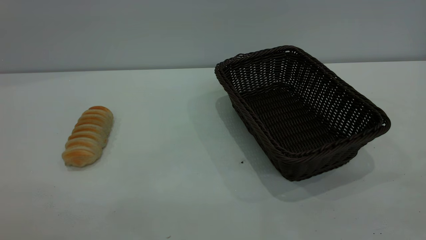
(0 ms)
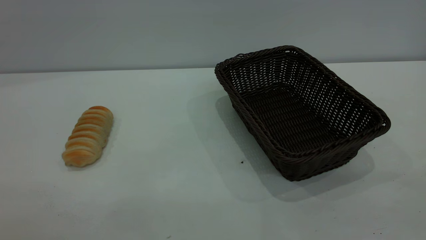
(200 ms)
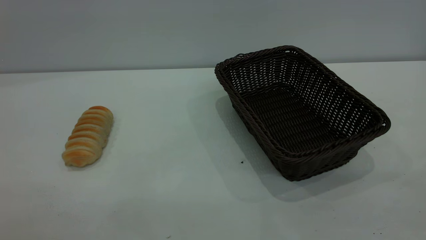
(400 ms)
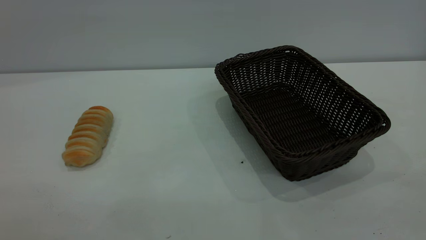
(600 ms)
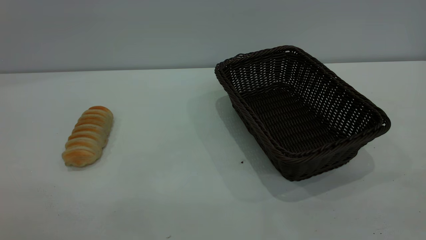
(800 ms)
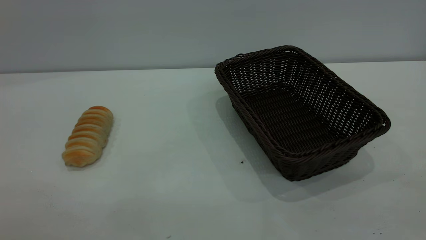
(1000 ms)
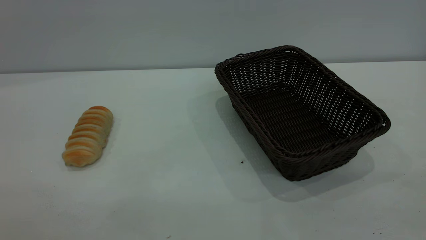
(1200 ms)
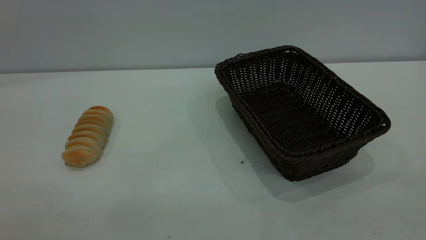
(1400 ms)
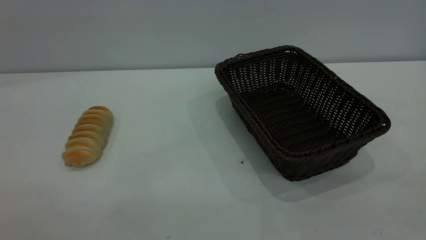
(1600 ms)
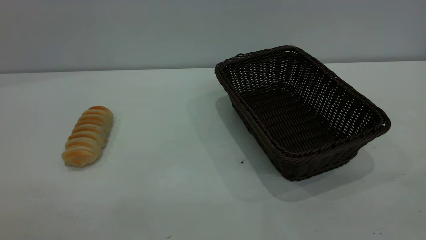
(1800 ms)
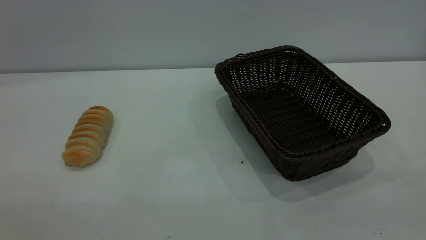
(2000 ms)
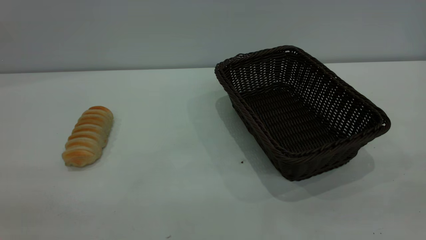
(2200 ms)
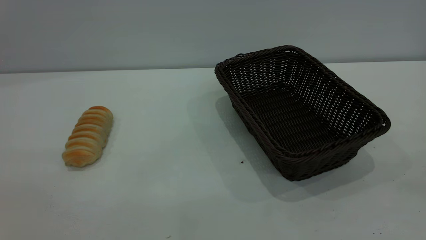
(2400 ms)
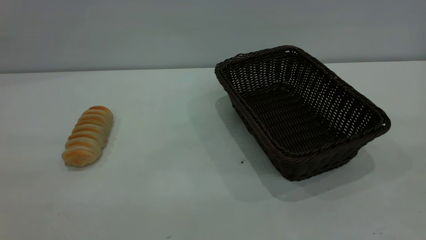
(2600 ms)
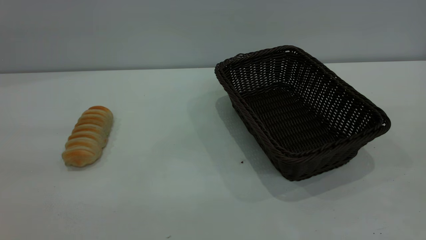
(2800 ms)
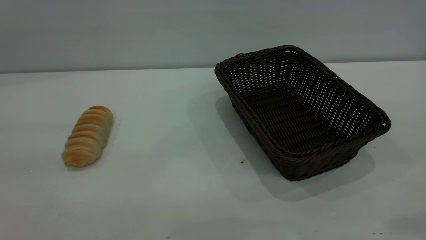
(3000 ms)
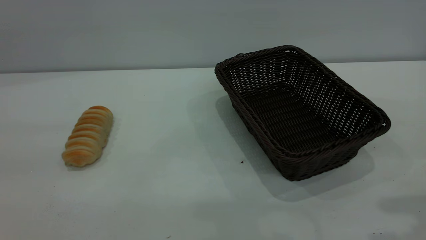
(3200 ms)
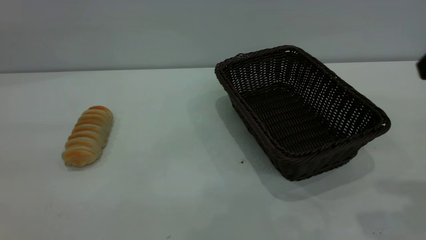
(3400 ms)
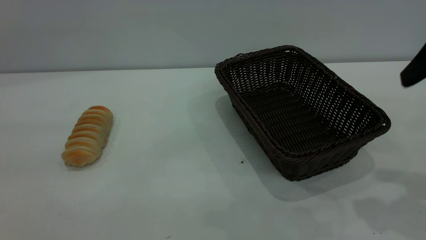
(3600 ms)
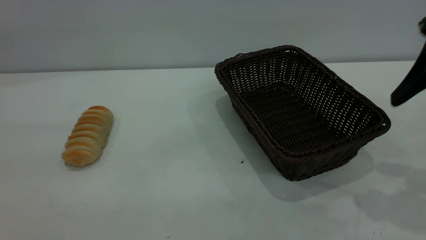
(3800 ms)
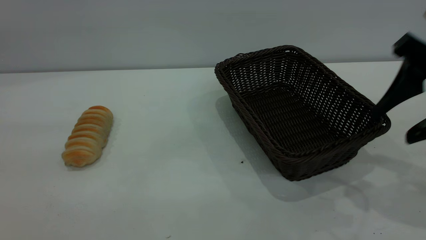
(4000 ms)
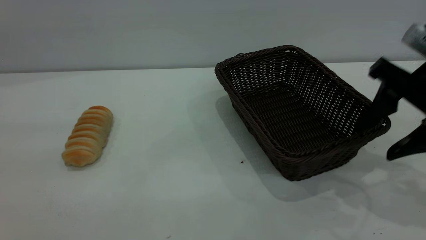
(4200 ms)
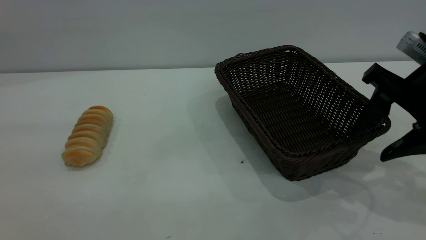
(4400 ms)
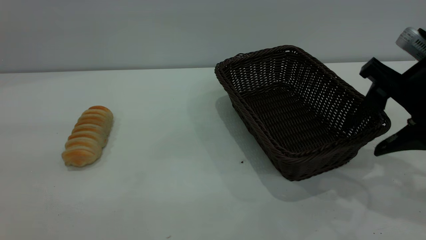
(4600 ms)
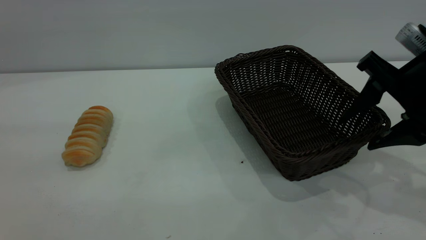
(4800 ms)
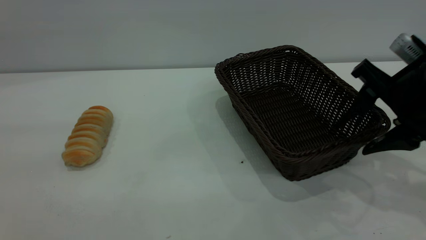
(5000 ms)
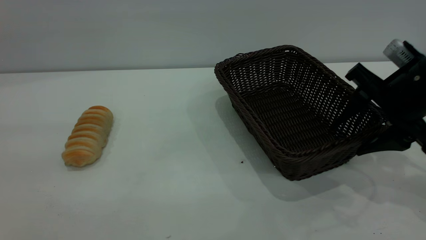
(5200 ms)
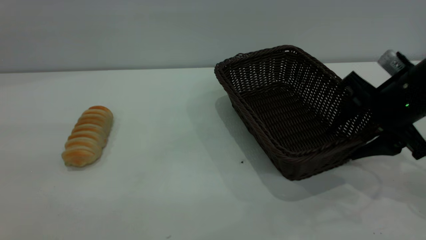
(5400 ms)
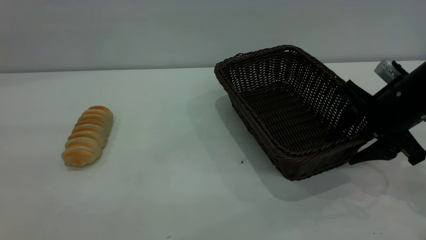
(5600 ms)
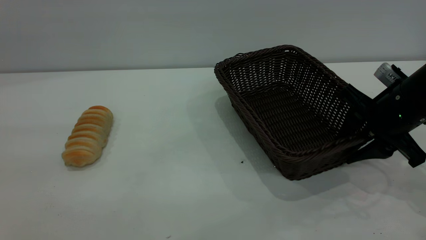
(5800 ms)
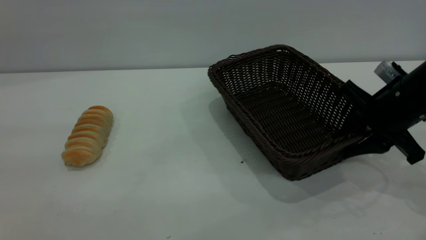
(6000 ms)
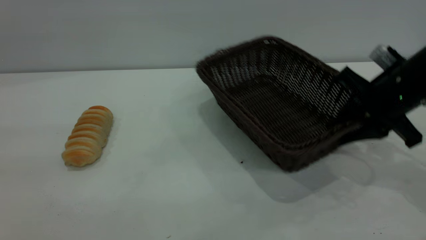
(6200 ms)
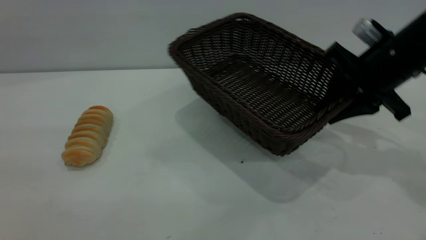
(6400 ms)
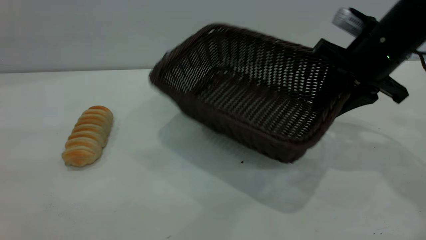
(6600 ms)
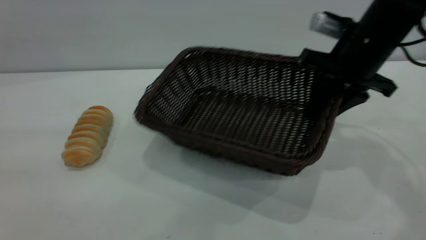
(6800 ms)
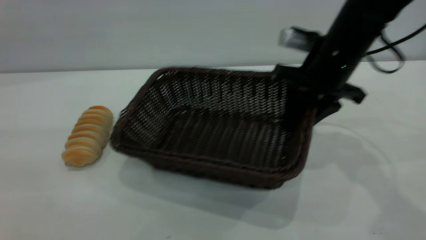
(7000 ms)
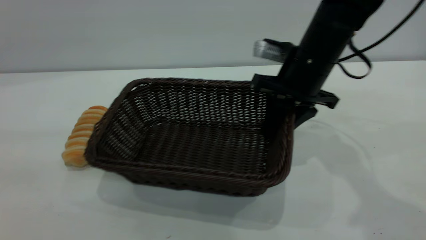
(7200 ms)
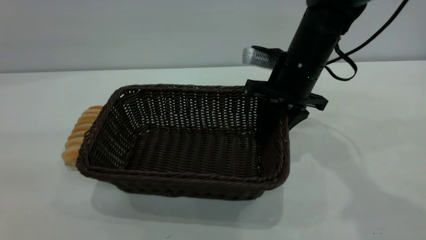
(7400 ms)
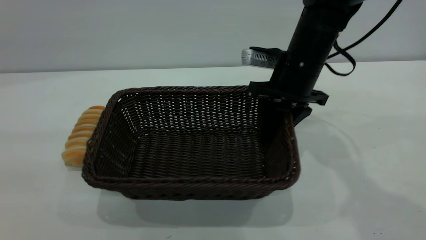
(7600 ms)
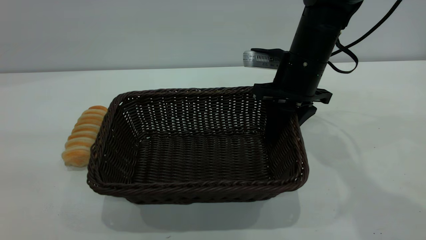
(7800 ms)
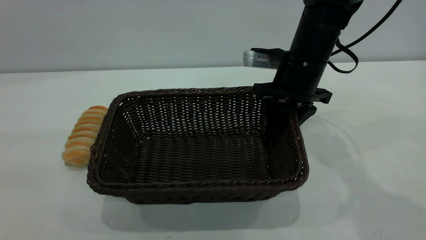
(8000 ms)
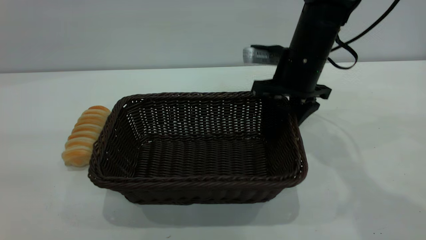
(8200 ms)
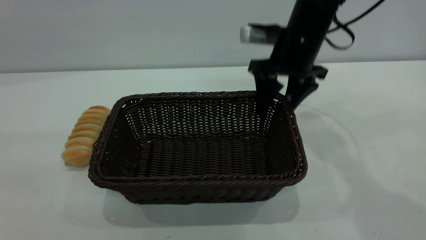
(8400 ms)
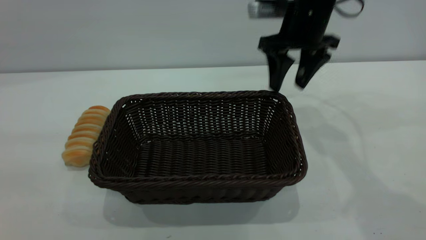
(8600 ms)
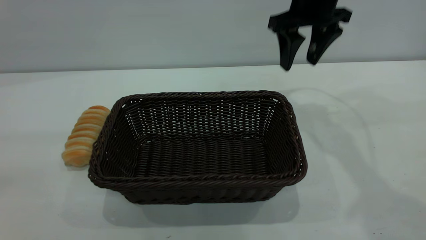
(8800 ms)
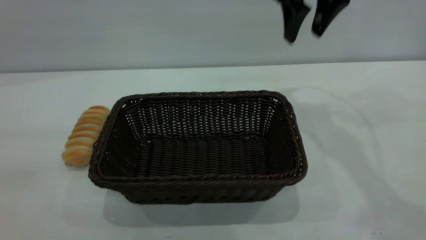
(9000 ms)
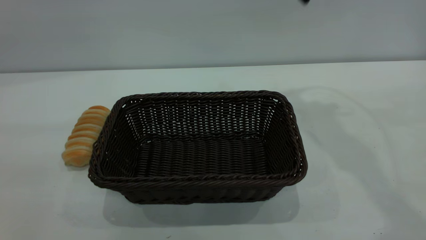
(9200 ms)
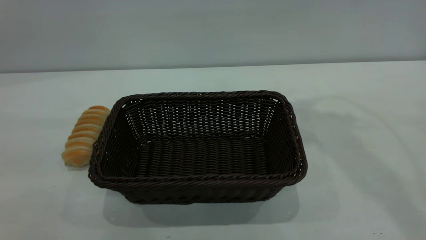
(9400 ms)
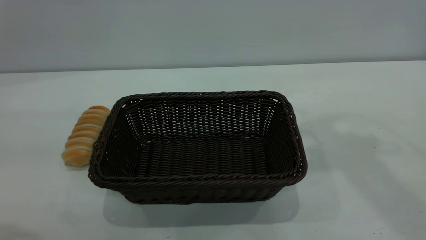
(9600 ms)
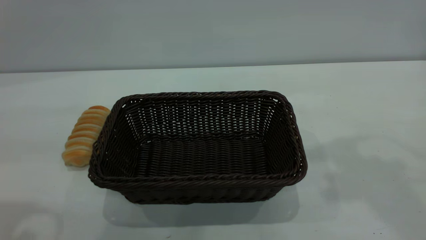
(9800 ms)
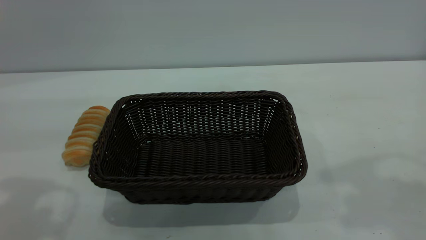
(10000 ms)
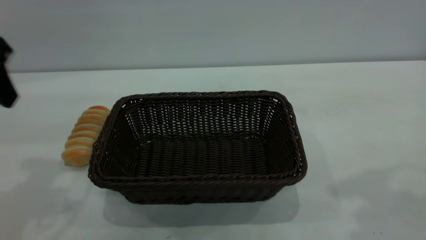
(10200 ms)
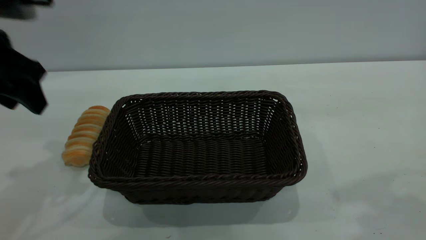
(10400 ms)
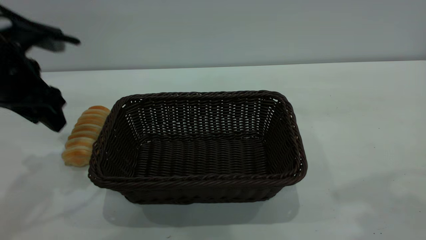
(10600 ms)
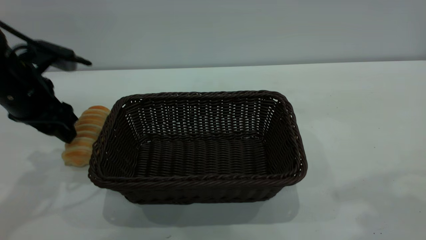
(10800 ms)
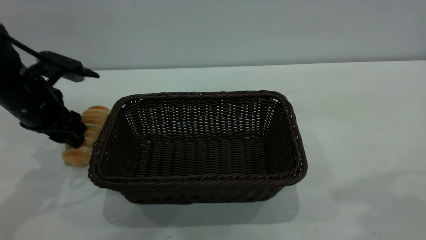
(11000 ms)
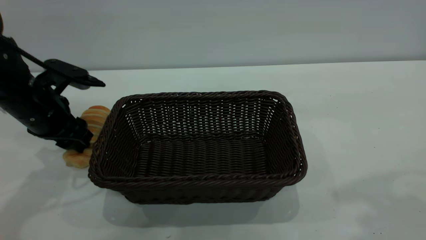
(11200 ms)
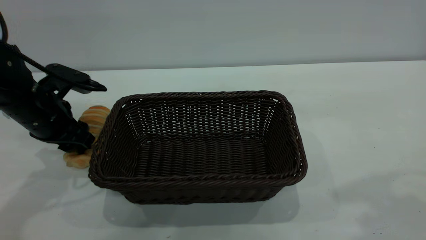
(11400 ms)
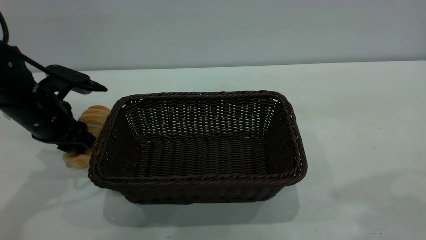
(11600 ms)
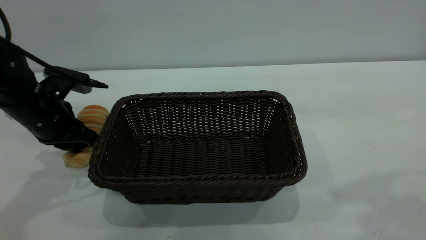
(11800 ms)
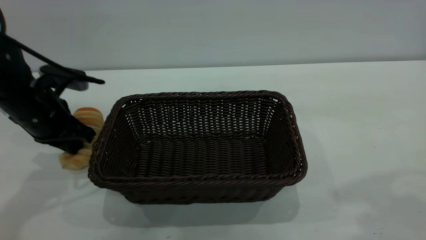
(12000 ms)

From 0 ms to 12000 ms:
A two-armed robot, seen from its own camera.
Task of the whole recording: One hand grasps the black basket and places it in the middle of the table, while the other hand picks up the long bread and puts it into the black basket.
Step, from 0 ms to 8600 ms: Move the basket to the center of view.
From 0 ms to 1600 ms: Both grippers stay about where they are.
From 3000 ms to 4400 ms: The right gripper heads downward and forward, covering about 20 cm.
From 4400 ms to 6000 ms: The right gripper is displaced downward and forward by some 10 cm, and closes up.
From 6000 ms to 7600 ms: The right gripper heads to the left and forward, covering approximately 15 cm.
From 7600 ms to 9000 ms: The right gripper goes approximately 15 cm upward, and opens its fingers.
From 9000 ms to 10400 ms: The left gripper moves forward and downward, approximately 30 cm. The right gripper is displaced backward and upward by roughly 25 cm.
From 10400 ms to 12000 ms: The left gripper moves downward, approximately 10 cm, and closes up.

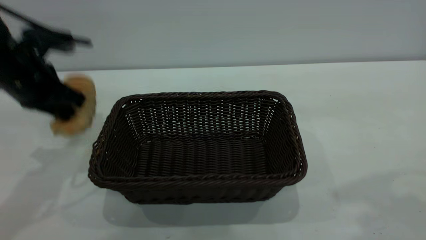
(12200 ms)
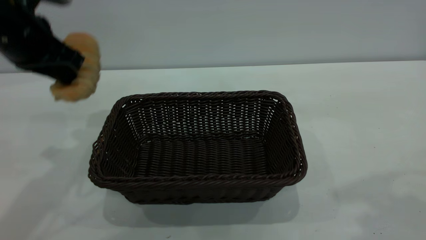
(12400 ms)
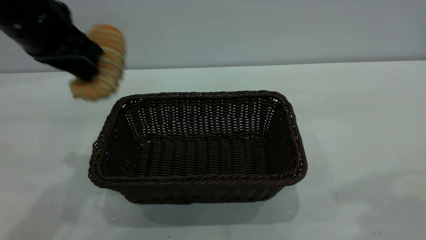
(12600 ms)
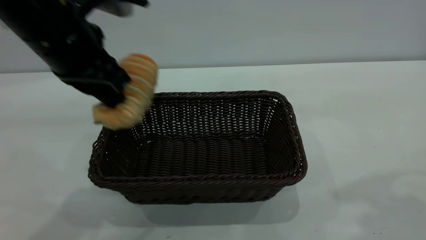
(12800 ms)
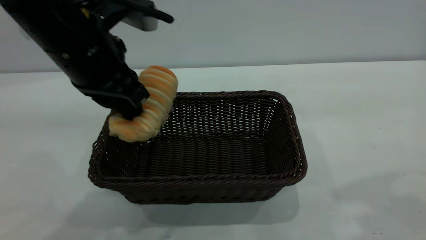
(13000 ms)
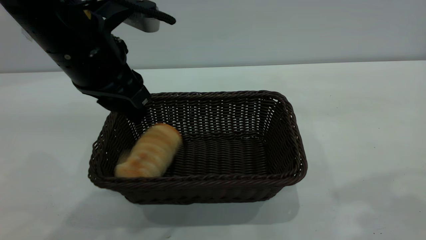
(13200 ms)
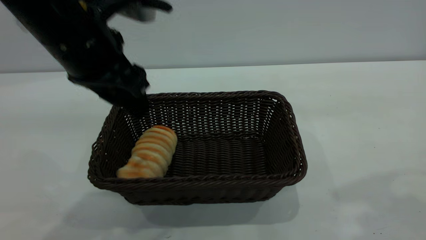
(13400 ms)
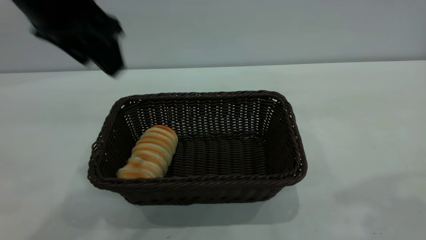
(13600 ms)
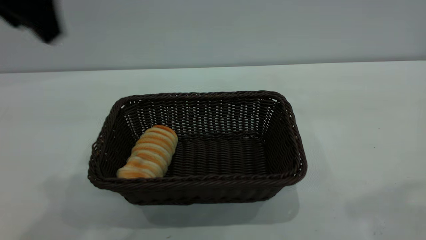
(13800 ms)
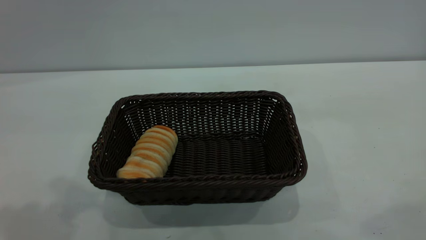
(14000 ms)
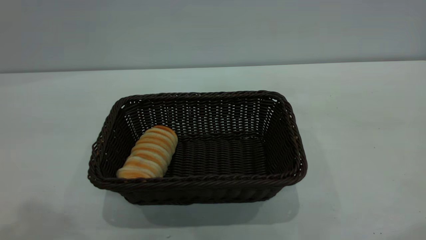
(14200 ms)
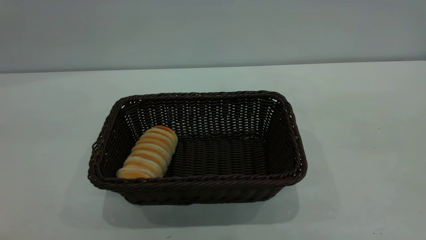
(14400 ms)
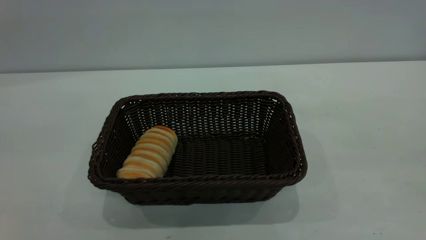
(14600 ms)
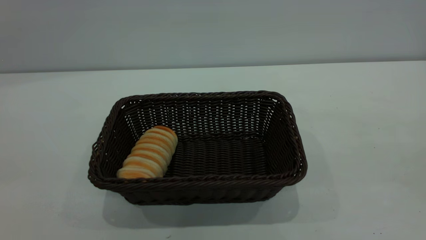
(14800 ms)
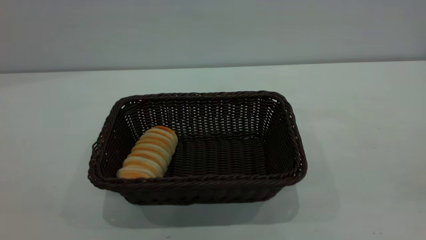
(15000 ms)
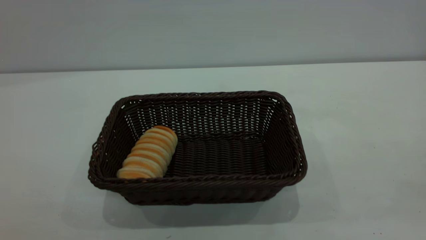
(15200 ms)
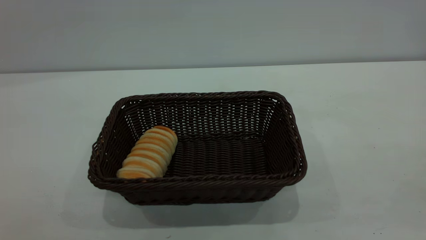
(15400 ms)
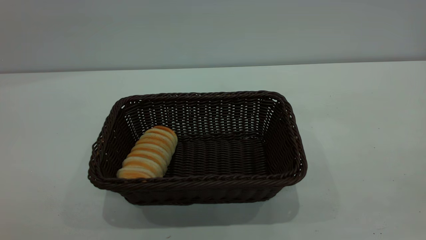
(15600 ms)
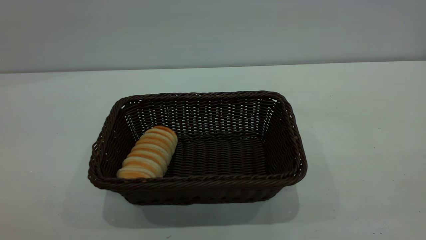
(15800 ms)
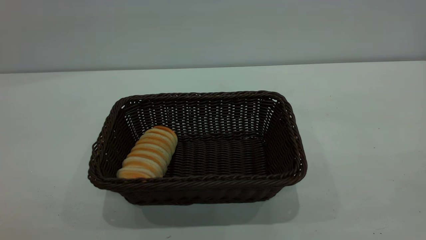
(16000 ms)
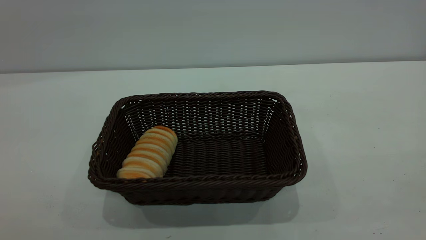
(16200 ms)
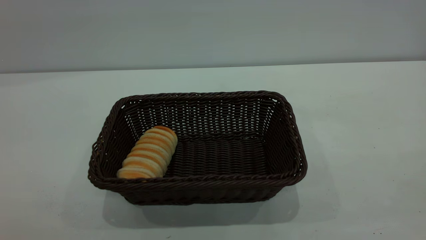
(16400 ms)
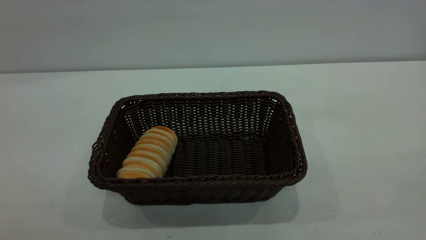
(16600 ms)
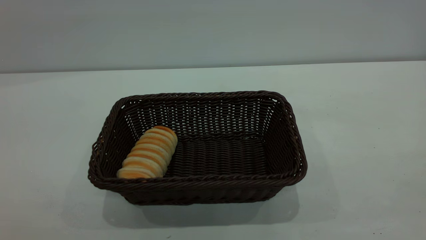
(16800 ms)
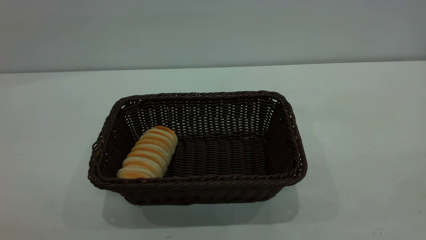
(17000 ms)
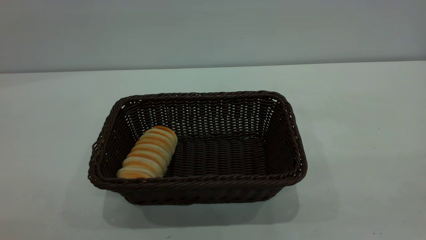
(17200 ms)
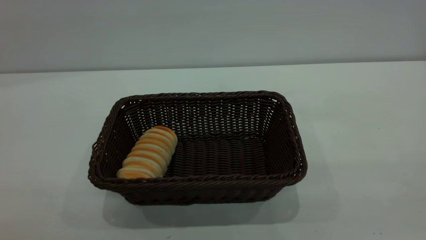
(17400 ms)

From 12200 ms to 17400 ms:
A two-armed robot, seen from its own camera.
Task of the whole recording: One hand grasps the black basket and places it in the middle of the table, while the other hand picks up the long bread and puts it into the black basket.
Step, from 12600 ms to 13400 ms: place the bread into the basket.
From 12200 ms to 14000 ms: The right gripper heads backward, covering roughly 5 cm, while the left gripper moves upward and backward, some 25 cm, and opens its fingers.
